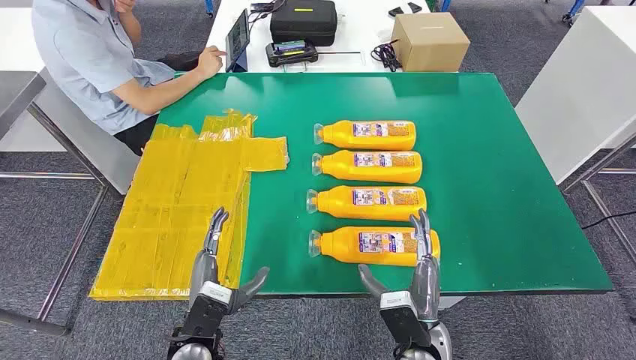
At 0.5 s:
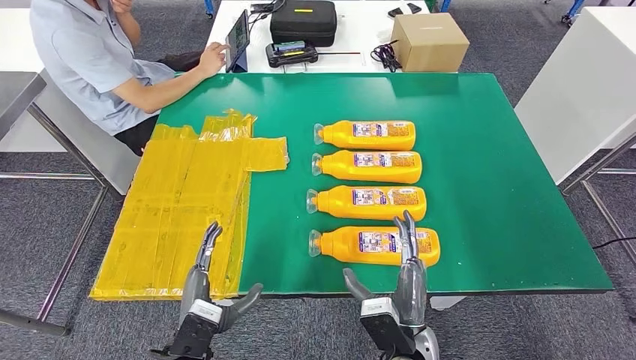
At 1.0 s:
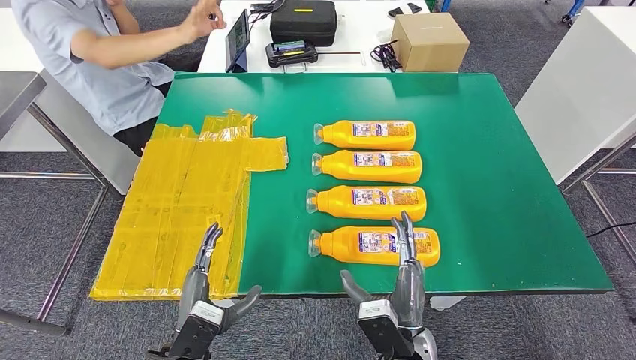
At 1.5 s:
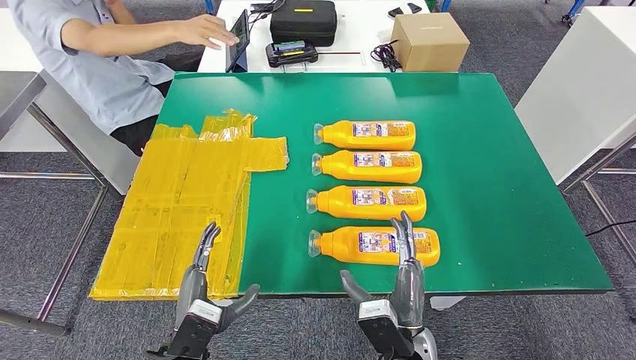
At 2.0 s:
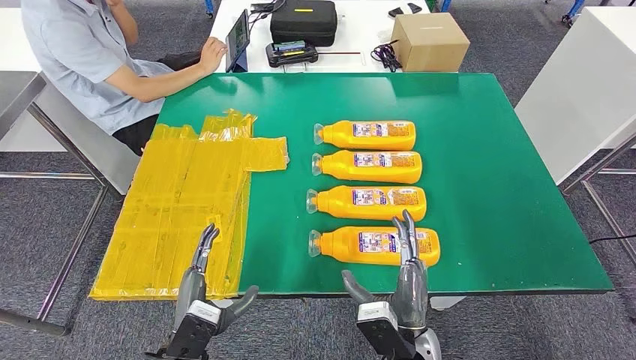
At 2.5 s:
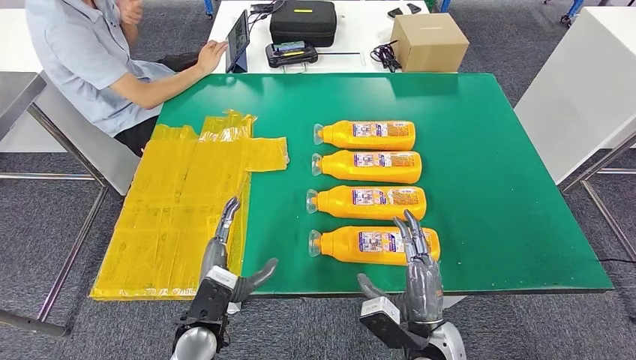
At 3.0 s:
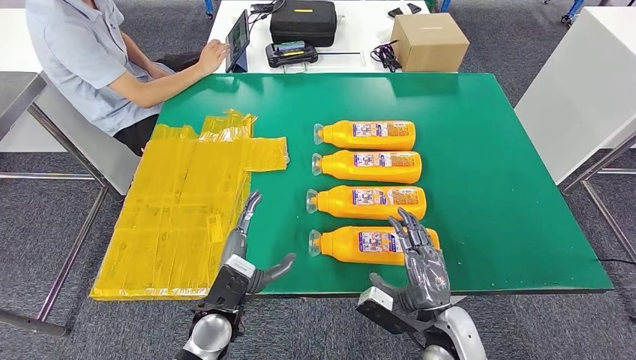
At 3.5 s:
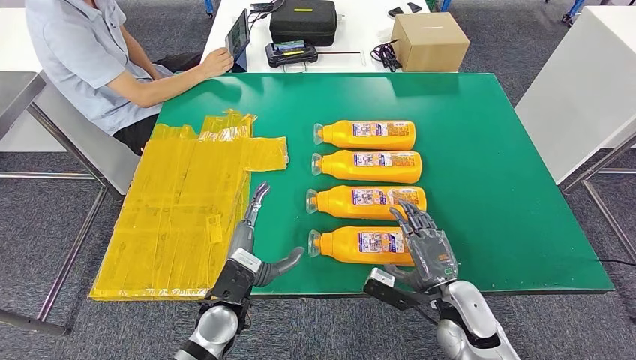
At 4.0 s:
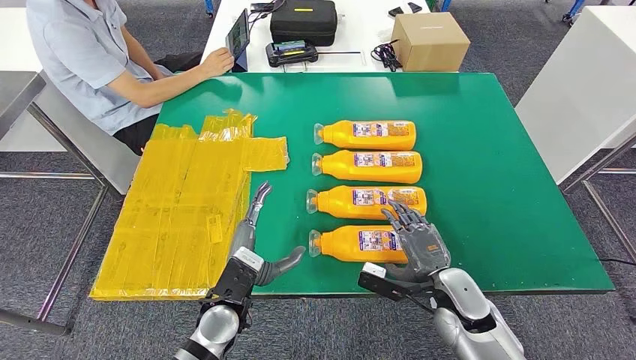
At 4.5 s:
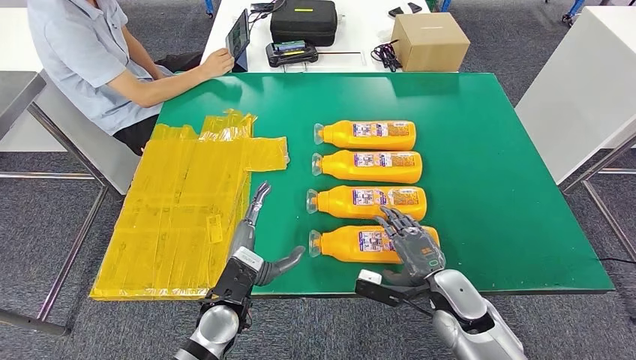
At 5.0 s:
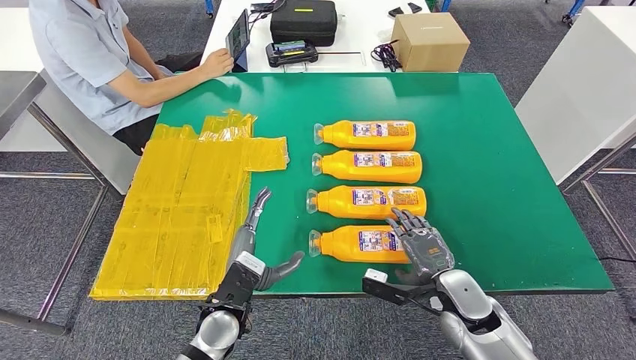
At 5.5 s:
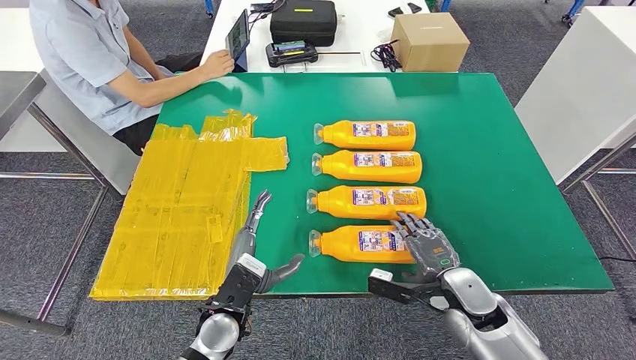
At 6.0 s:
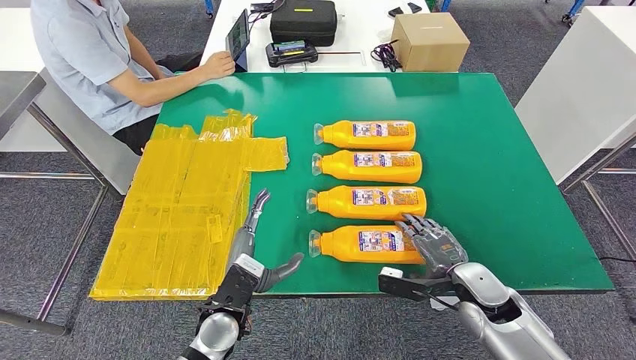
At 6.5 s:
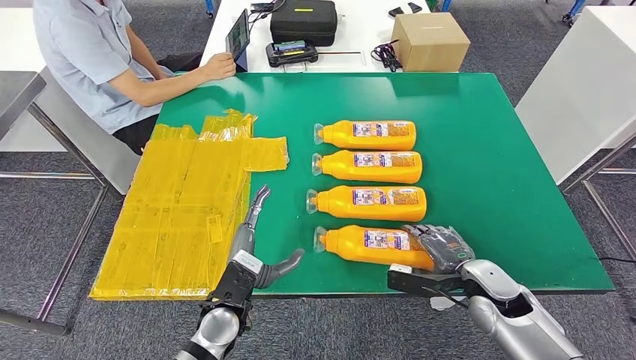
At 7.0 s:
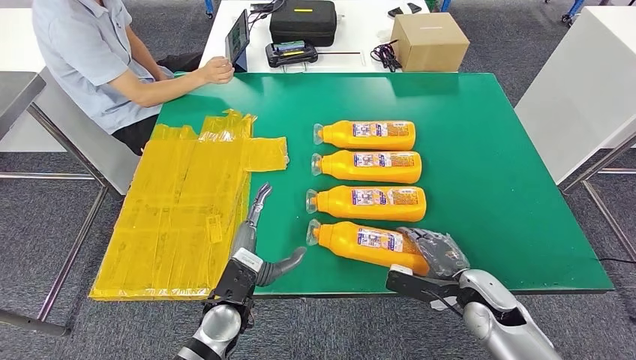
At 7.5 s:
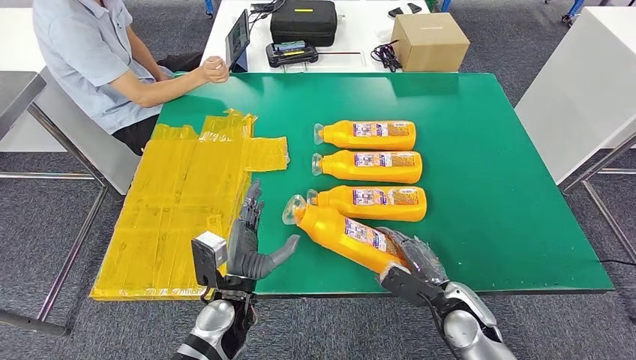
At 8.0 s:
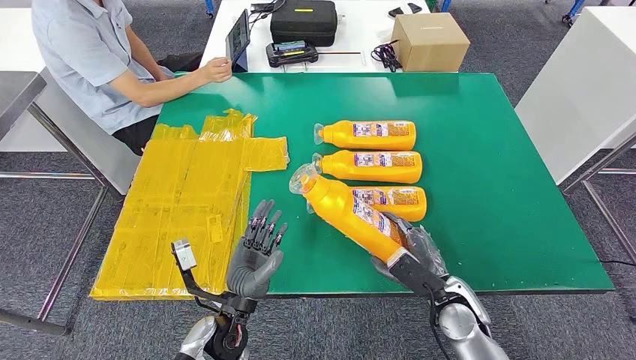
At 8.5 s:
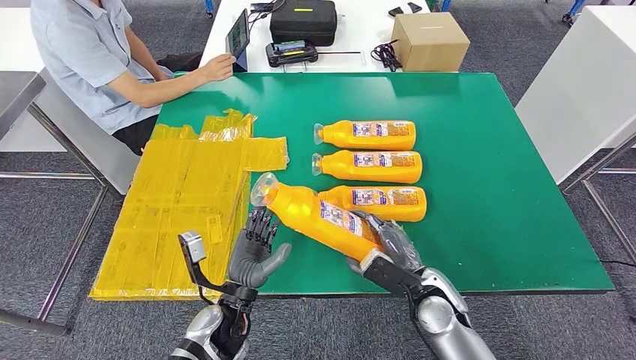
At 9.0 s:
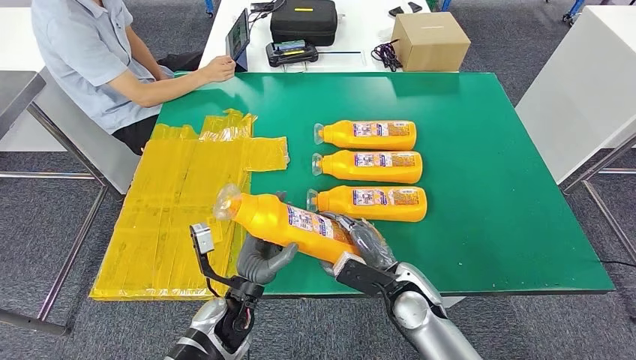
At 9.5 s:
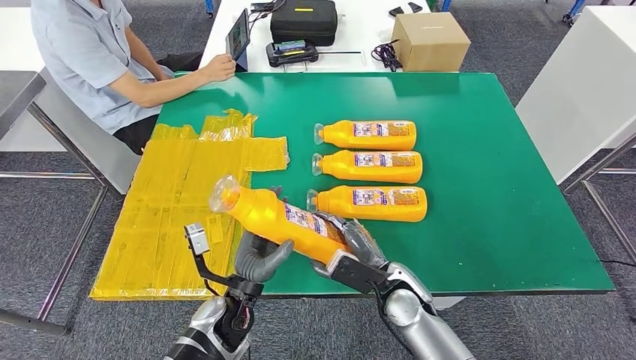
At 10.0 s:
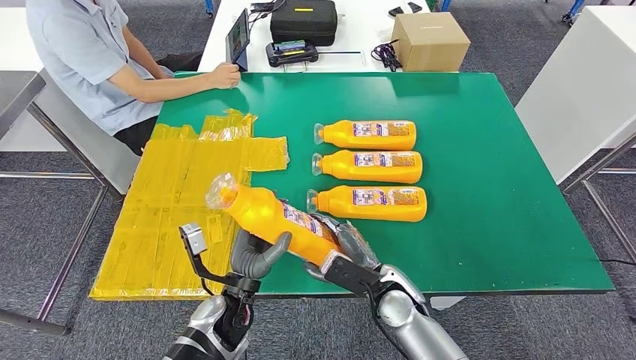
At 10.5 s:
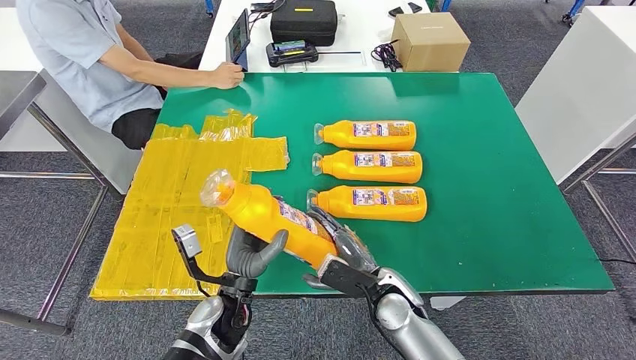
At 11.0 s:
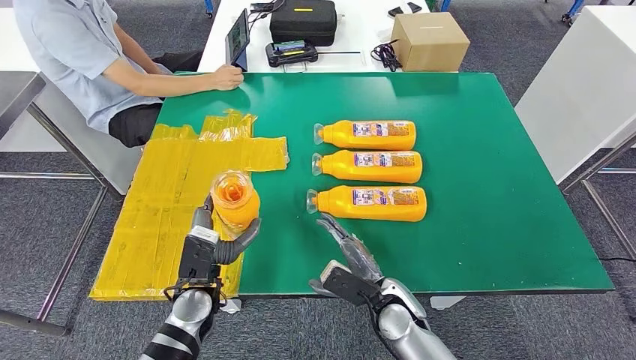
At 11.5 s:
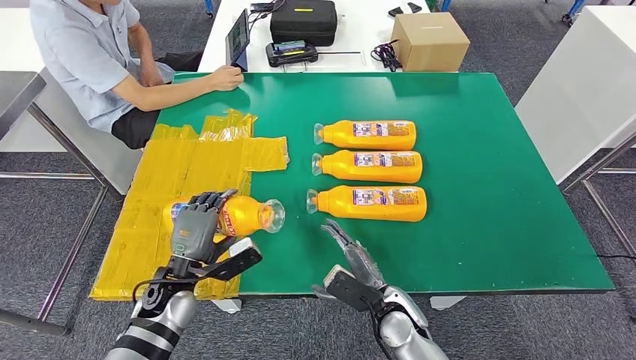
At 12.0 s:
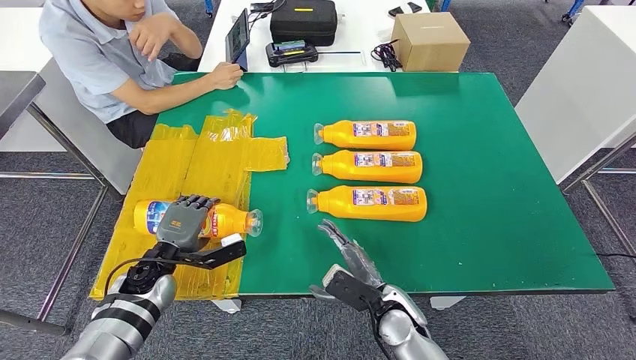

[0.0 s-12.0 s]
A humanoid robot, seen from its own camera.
Step, 0.0 to 8.5 s: Take the fast-moving consumer goods bottle from the table.
2.0 to 4.0 s: The right hand heads to the right and forward, covering about 15 cm. The left hand travels forward and to the right by about 10 cm.
4.0 to 6.0 s: There are only small adjustments of the hands.
8.0 to 10.0 s: The right hand is displaced to the left by roughly 10 cm.
10.0 to 12.0 s: The left hand goes about 20 cm to the left and forward.

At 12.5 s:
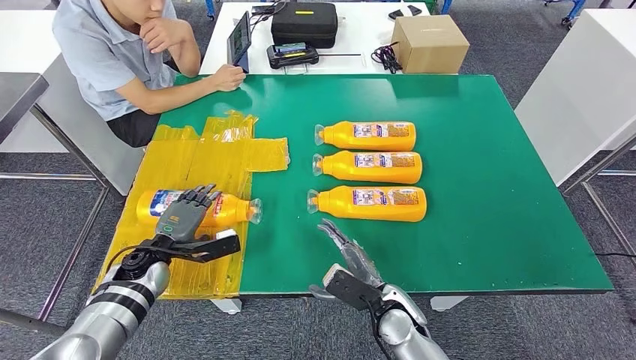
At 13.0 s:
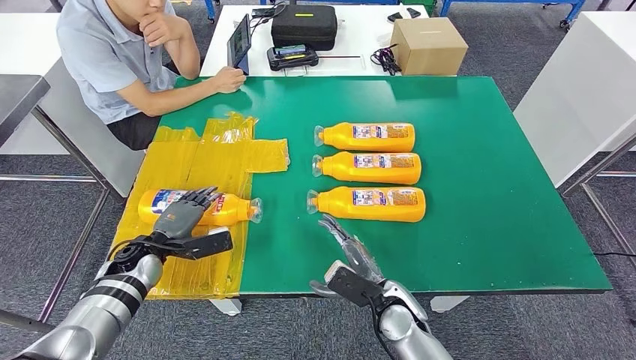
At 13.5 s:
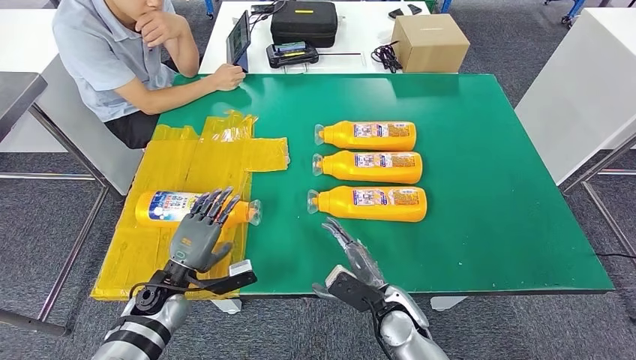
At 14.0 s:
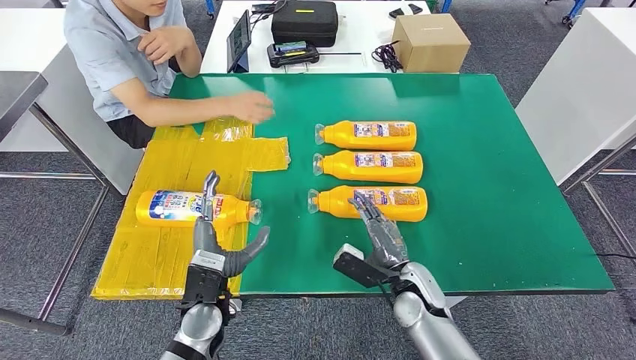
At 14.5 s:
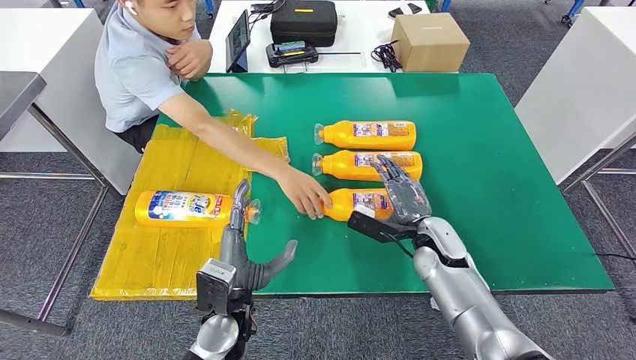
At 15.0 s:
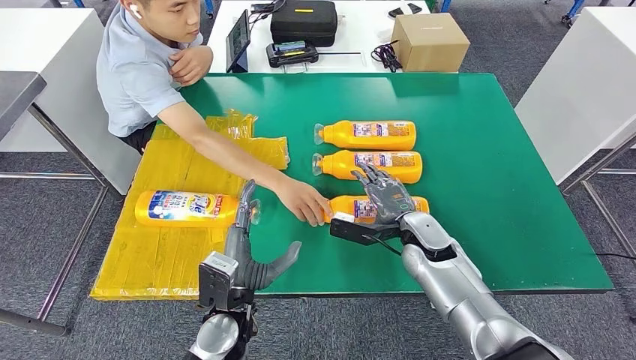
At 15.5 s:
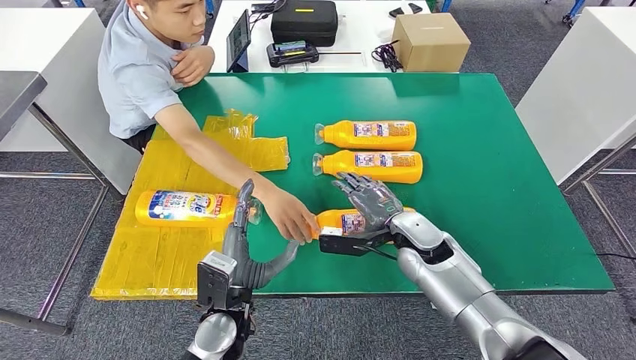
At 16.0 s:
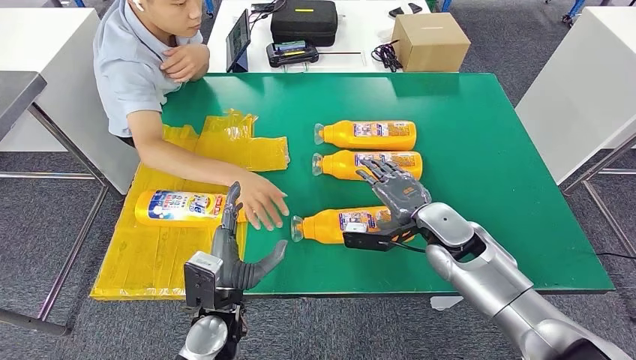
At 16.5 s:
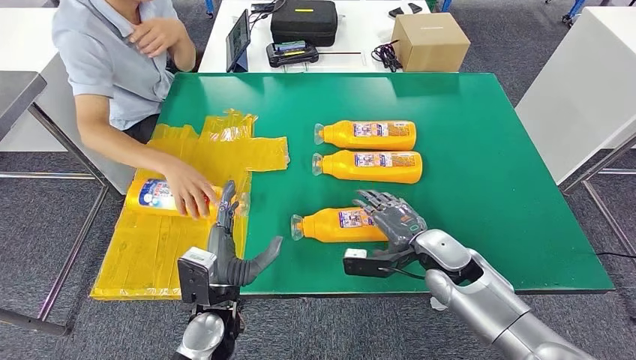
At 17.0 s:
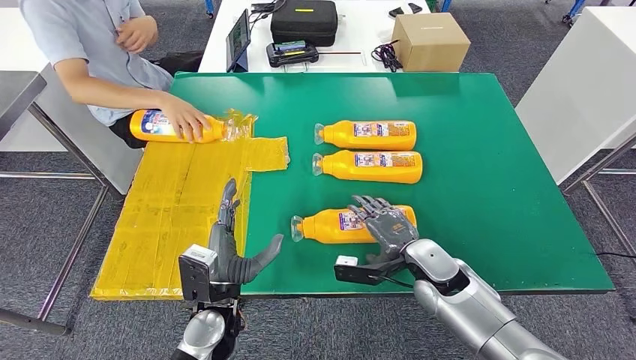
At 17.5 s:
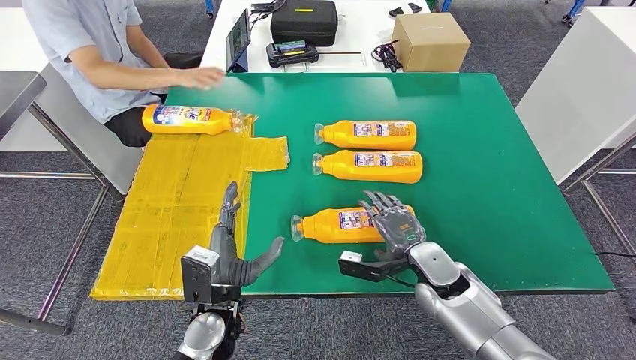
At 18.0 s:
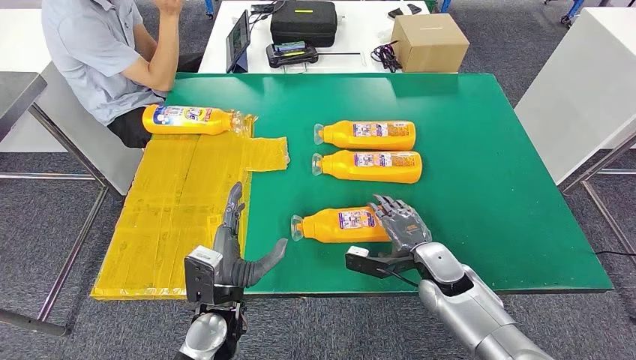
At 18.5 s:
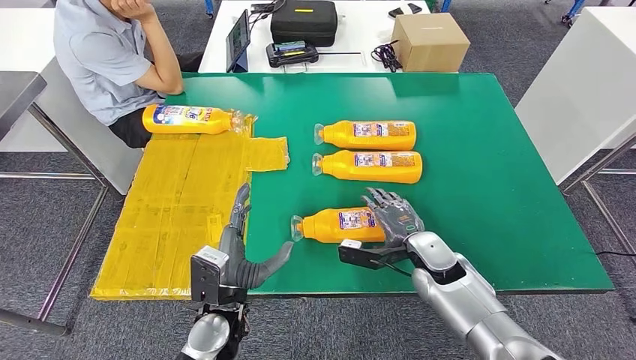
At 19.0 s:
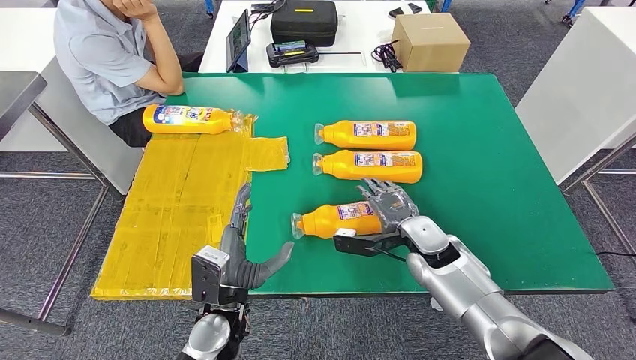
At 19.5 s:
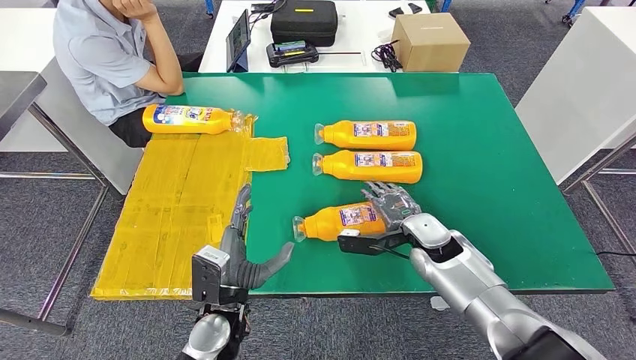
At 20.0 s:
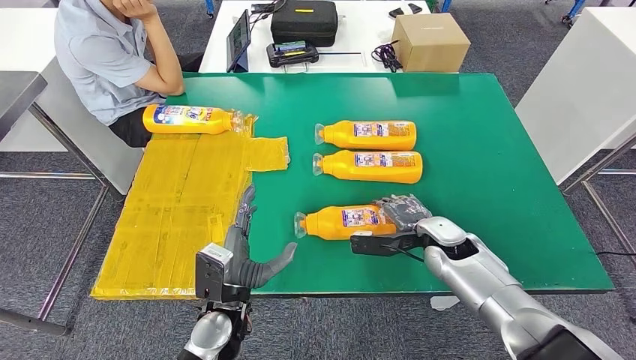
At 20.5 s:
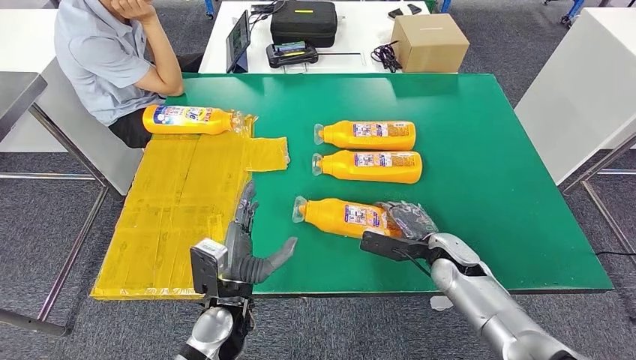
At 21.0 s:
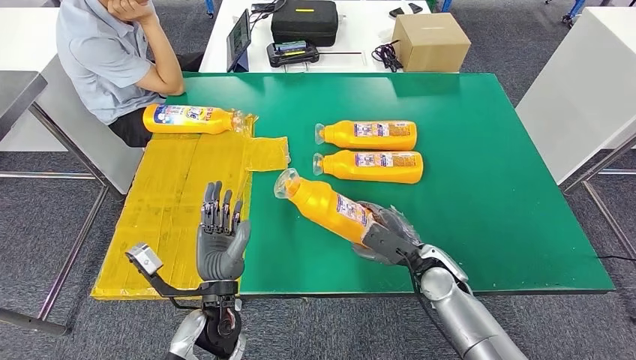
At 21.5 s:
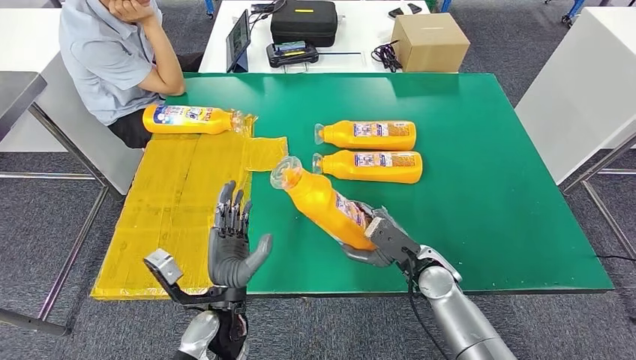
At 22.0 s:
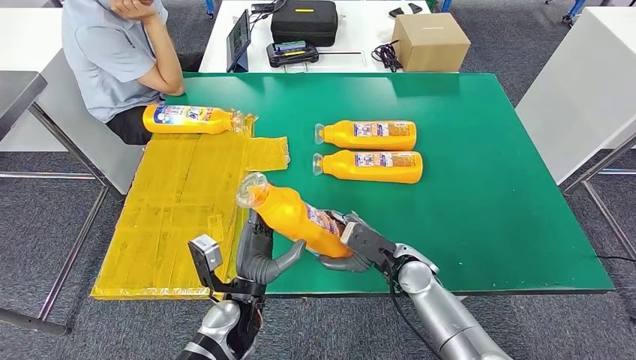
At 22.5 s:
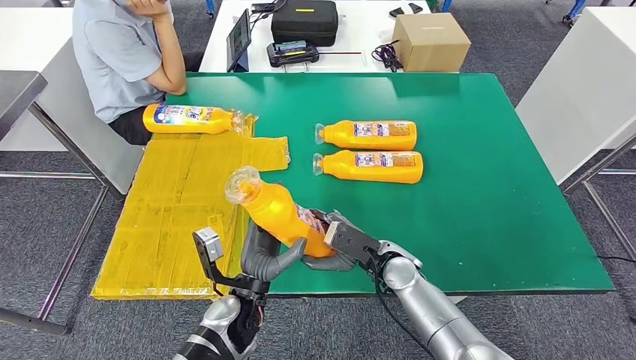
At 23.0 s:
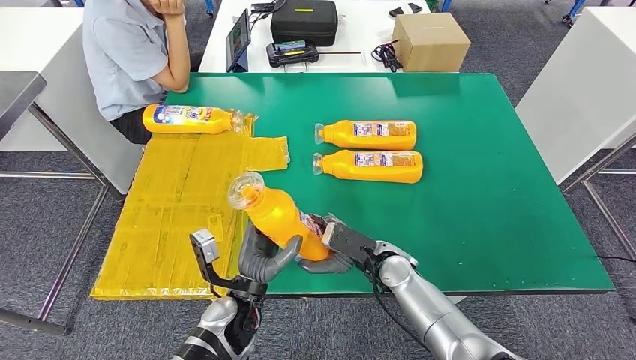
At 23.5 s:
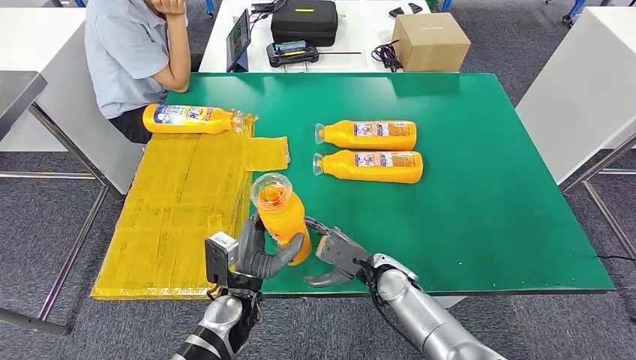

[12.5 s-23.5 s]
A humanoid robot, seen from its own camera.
Step, 13.0 to 21.5 s: Pick up the fast-moving consumer goods bottle from the table.
18.0 to 20.0 s: The right hand shifts by roughly 5 cm.
20.0 to 21.5 s: The right hand moves backward, approximately 5 cm.
21.5 to 23.5 s: The right hand moves to the left, roughly 5 cm.
